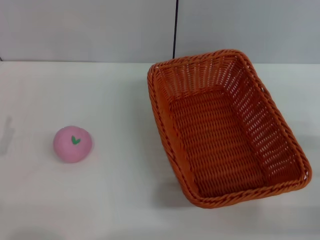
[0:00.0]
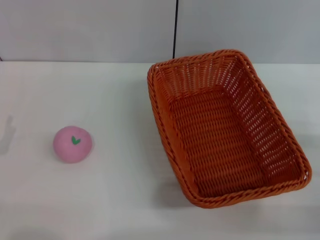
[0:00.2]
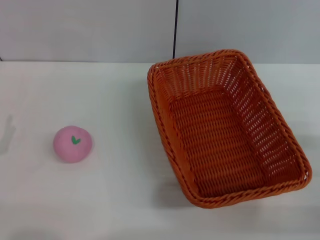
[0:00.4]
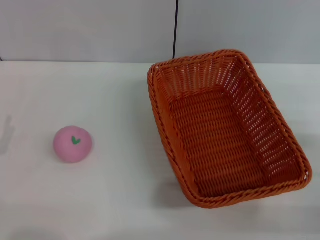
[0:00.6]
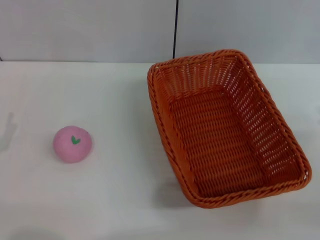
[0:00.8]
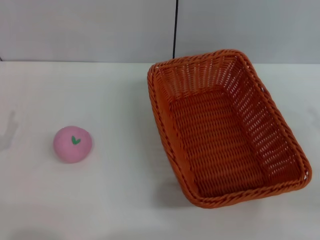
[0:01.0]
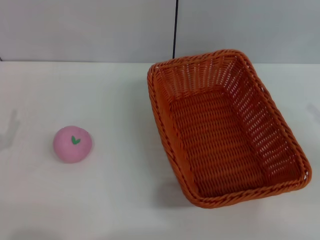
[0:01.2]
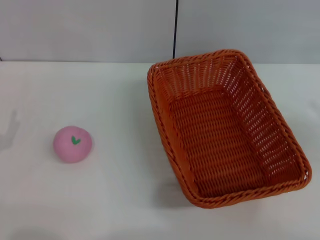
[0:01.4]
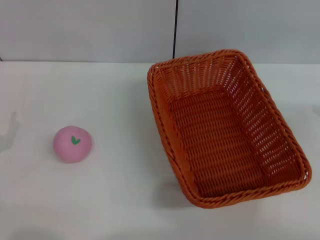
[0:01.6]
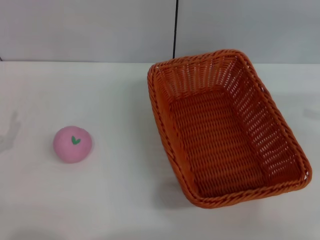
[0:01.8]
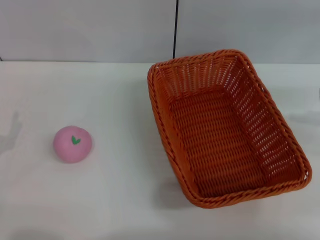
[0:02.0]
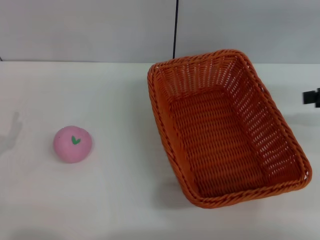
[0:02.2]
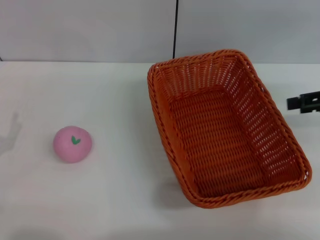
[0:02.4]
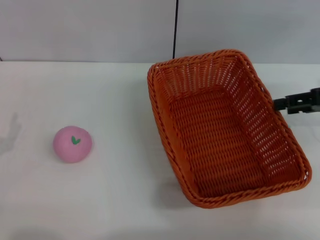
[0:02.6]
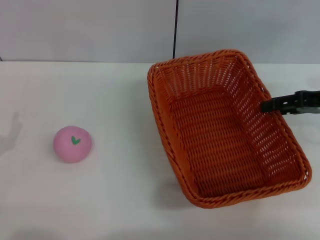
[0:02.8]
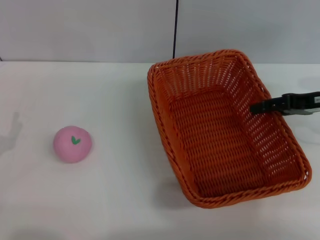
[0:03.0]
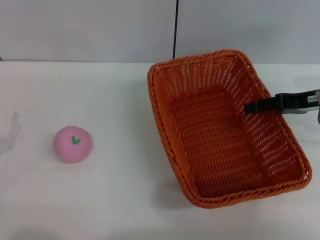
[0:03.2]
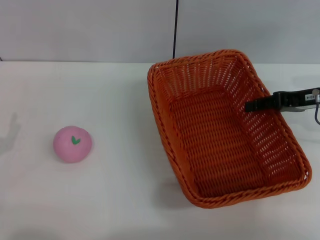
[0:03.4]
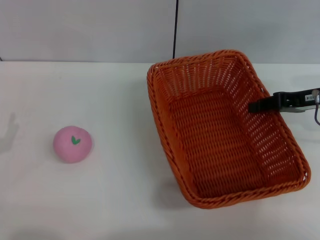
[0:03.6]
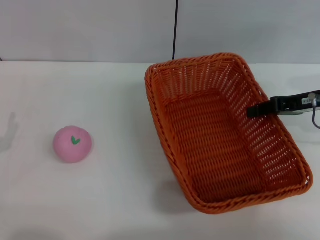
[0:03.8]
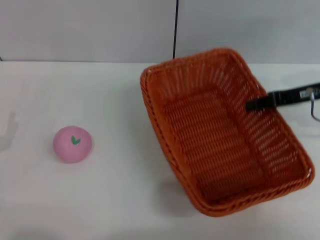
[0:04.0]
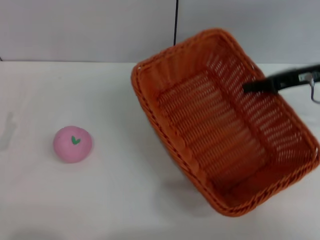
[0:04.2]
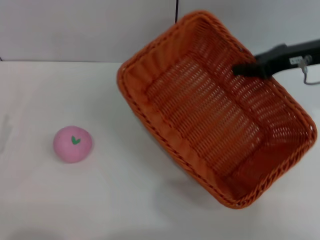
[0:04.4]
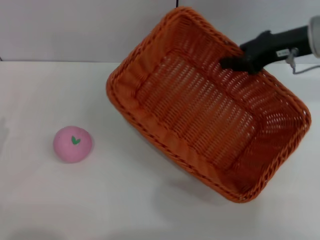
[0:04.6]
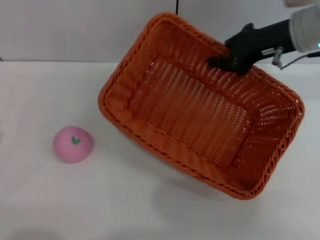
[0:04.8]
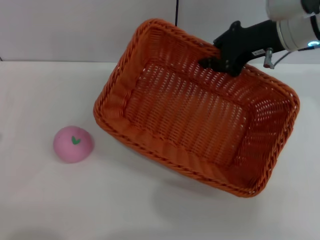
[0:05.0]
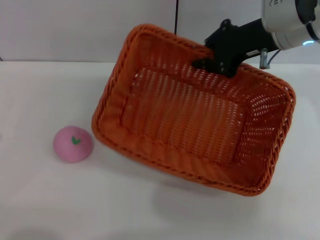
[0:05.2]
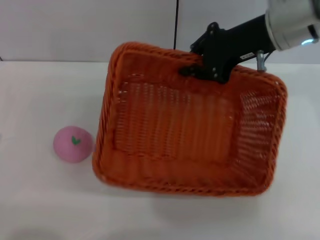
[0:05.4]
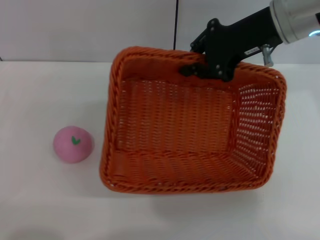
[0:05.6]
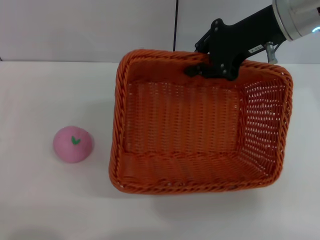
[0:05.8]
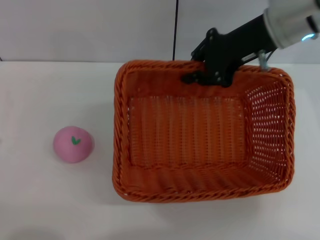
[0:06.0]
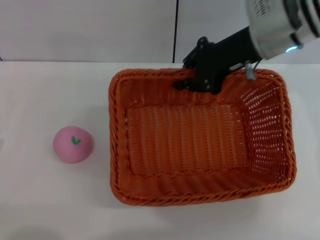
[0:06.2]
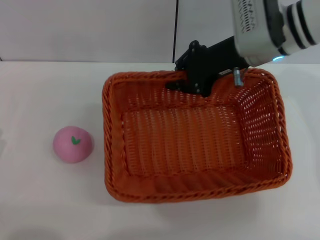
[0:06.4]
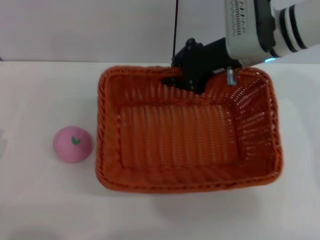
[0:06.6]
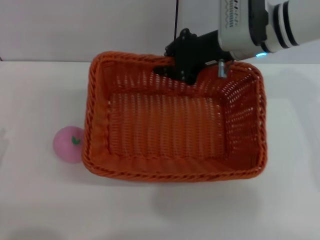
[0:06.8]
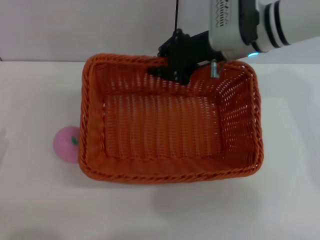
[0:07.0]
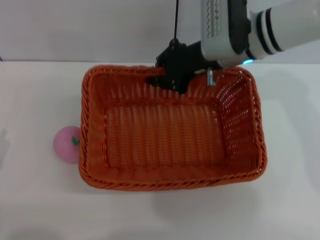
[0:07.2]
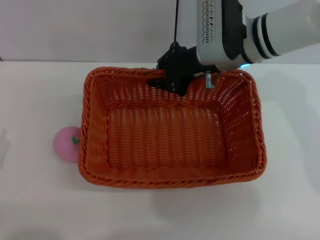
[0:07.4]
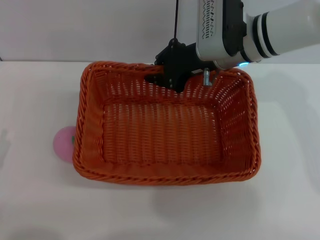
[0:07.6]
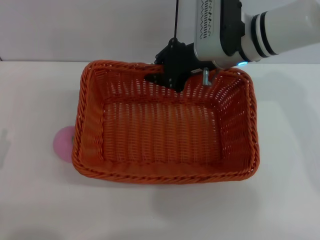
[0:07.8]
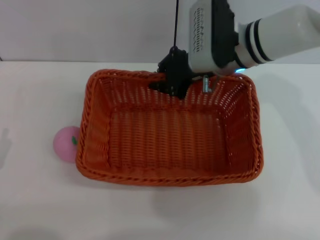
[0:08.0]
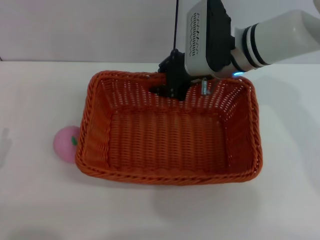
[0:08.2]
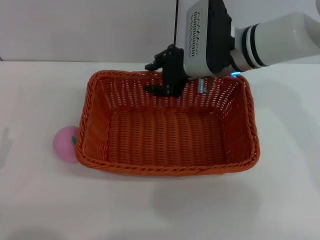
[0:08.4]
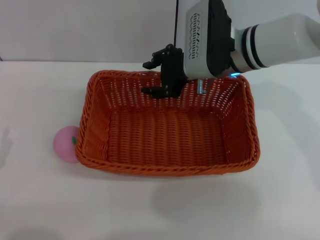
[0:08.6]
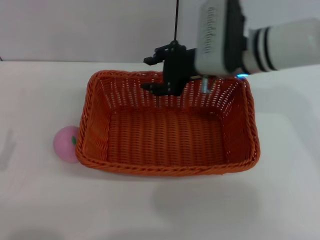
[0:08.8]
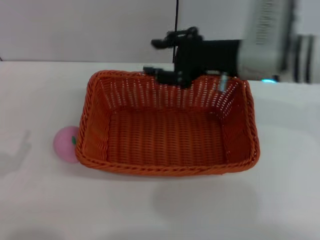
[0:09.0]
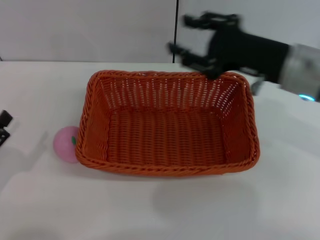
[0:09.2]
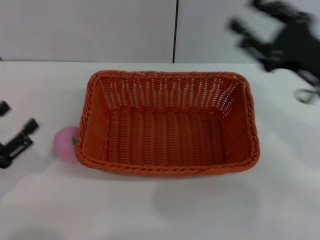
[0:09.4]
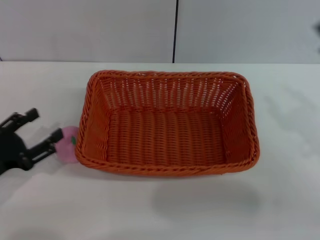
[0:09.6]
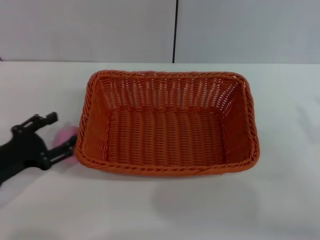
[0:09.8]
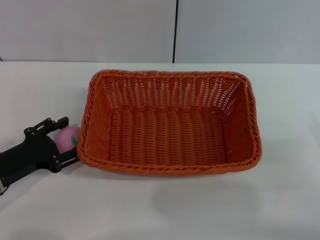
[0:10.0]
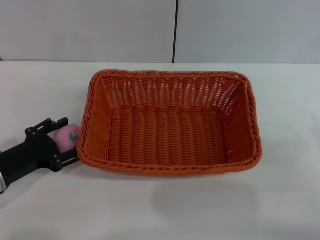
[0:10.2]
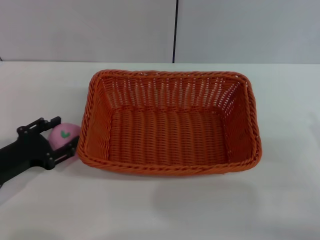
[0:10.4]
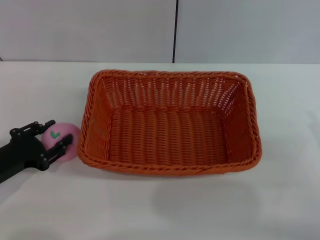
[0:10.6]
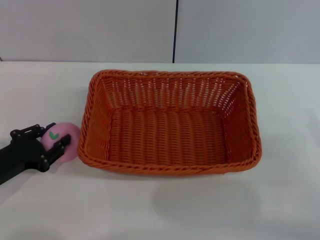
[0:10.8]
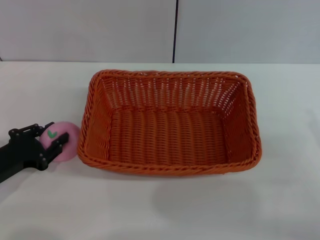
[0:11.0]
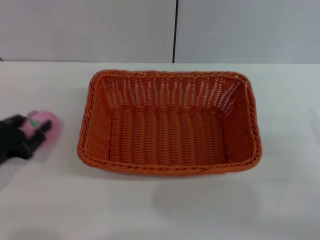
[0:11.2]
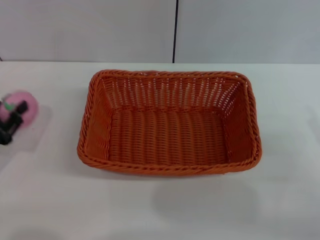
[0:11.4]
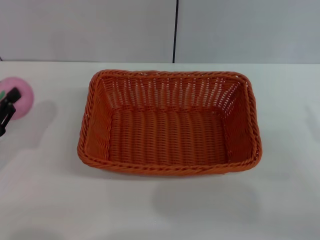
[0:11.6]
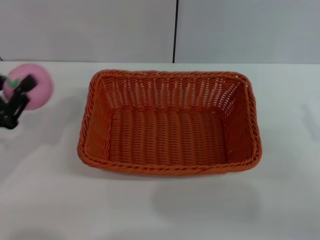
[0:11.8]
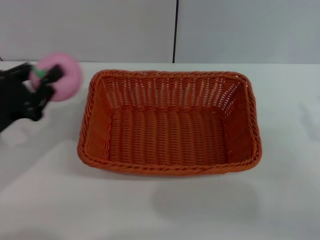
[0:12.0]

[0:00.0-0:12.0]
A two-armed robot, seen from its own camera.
Step, 0:00.0 to 0:04.4: Pick up the light basket with the right gripper.
Step, 0:04.6 to 0:09.0: Place the light basket in the center of view with the right gripper.
Step, 0:09.2 to 0:12.0: Pick up the peach with the left gripper.
0:00.0 to 0:01.6: The right gripper moves upward, forward and to the right, approximately 20 cm.
0:01.6 to 0:03.0: The right gripper heads to the left, forward and downward, covering about 15 cm.
0:03.0 to 0:04.4: The right gripper heads upward and to the left, covering approximately 10 cm, and closes up.
0:04.4 to 0:06.0: The right gripper travels to the left by approximately 10 cm.
0:06.0 to 0:07.6: The right gripper moves downward and to the left, some 10 cm.
0:07.6 to 0:09.0: The right gripper heads backward, covering some 5 cm, and opens.
0:09.0 to 0:10.4: The left gripper heads forward, covering about 10 cm; the right gripper travels to the right, backward and downward by about 25 cm.
0:10.4 to 0:12.0: The left gripper goes roughly 5 cm upward, and closes its fingers.

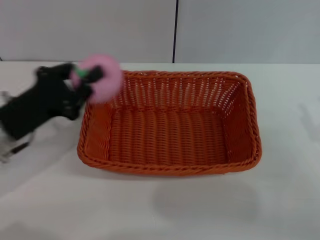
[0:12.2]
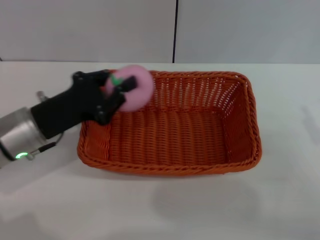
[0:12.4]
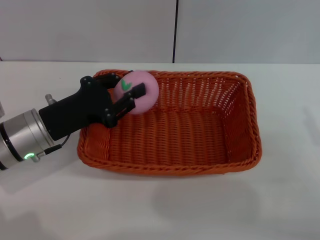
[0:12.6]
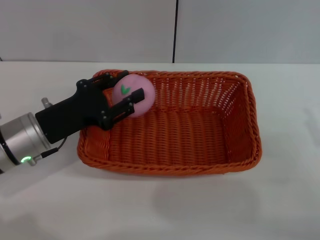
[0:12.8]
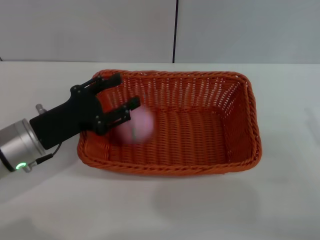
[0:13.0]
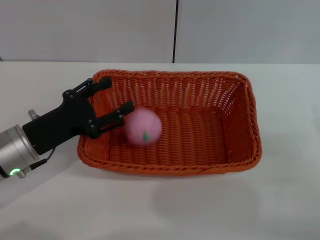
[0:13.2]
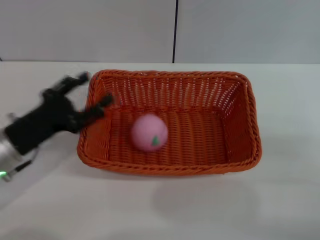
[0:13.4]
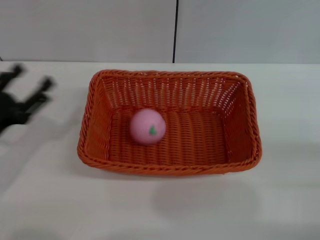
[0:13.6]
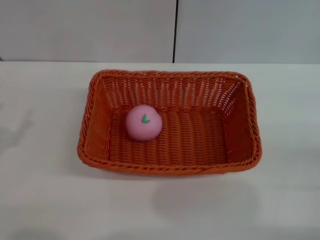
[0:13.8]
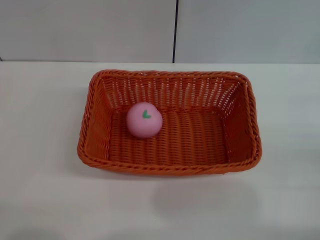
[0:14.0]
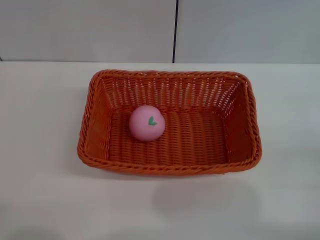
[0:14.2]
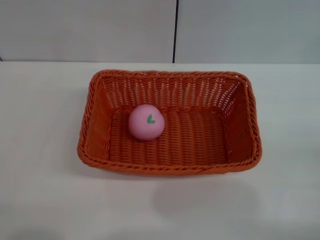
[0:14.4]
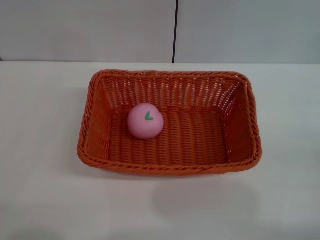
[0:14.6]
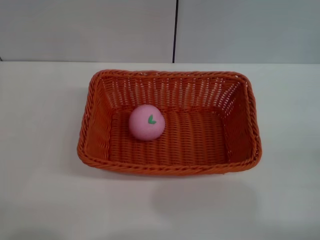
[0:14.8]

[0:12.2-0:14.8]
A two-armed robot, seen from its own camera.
Step, 0:12.2 to 0:13.2: Place the peach into the basket with the left gripper.
0:12.2 to 0:13.4: The left gripper opens up.
0:13.4 to 0:14.8: The right gripper moves roughly 5 cm, while the left gripper shifts approximately 15 cm backward and to the left.
